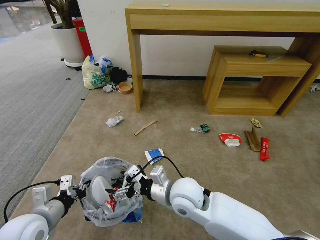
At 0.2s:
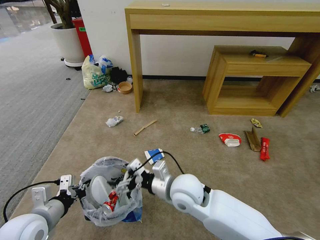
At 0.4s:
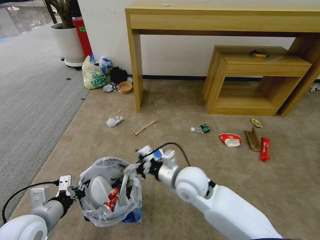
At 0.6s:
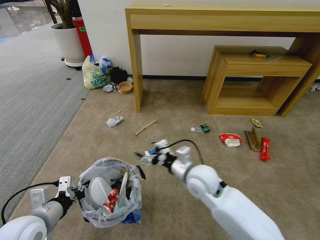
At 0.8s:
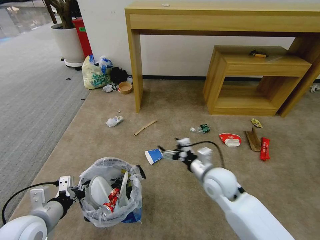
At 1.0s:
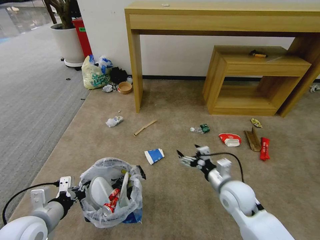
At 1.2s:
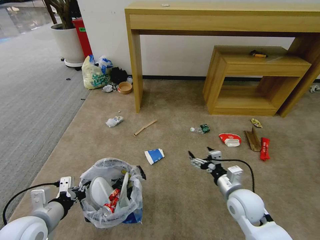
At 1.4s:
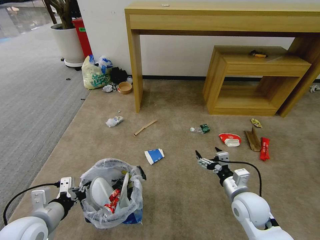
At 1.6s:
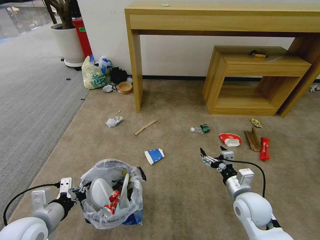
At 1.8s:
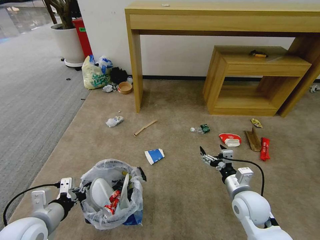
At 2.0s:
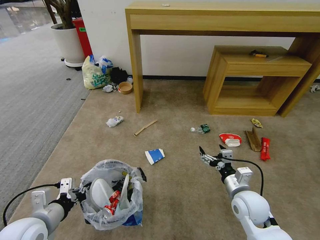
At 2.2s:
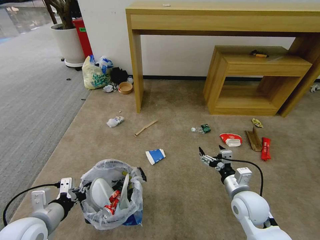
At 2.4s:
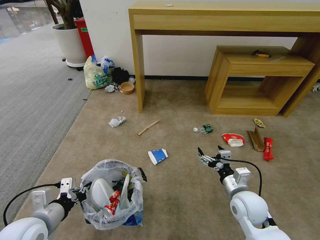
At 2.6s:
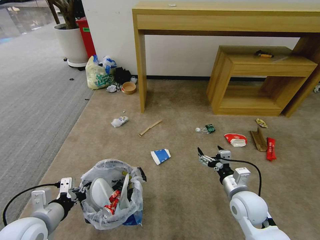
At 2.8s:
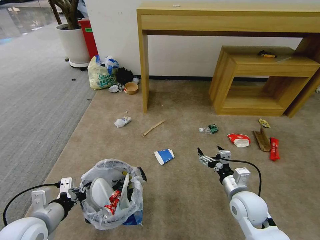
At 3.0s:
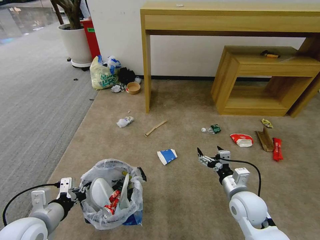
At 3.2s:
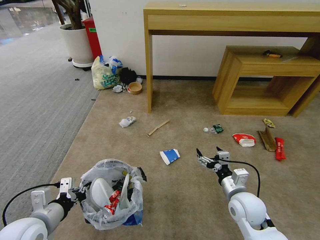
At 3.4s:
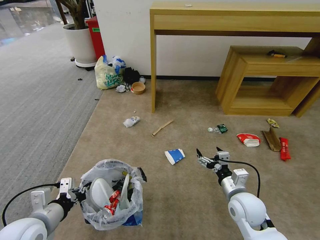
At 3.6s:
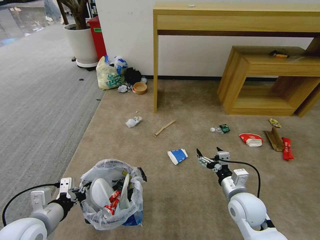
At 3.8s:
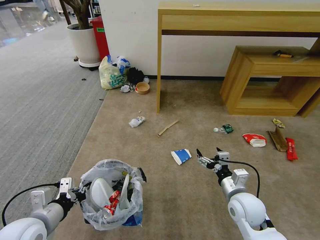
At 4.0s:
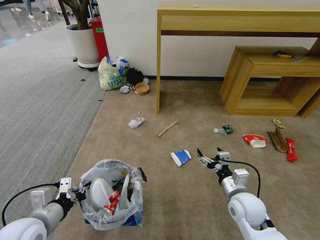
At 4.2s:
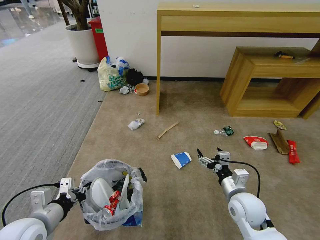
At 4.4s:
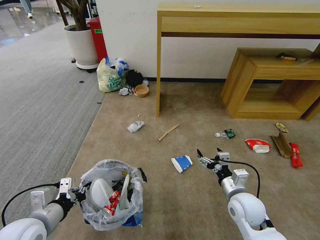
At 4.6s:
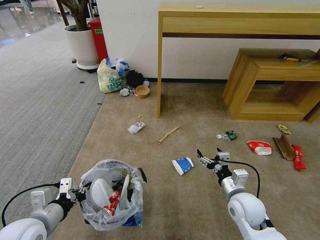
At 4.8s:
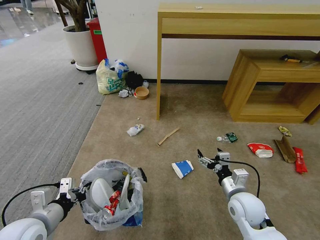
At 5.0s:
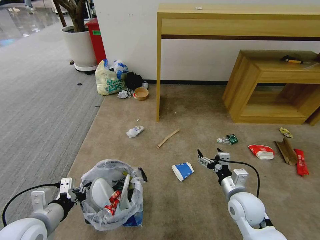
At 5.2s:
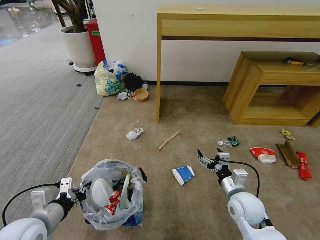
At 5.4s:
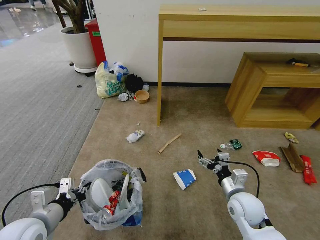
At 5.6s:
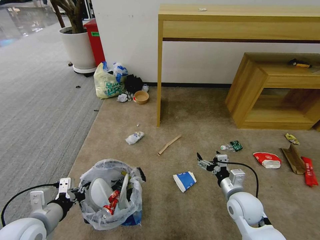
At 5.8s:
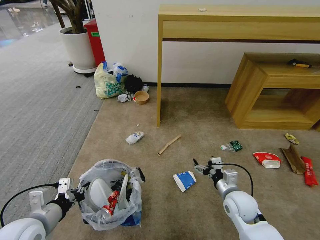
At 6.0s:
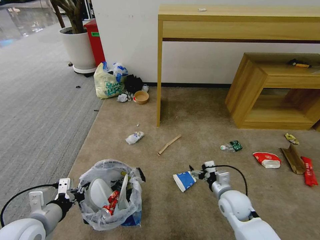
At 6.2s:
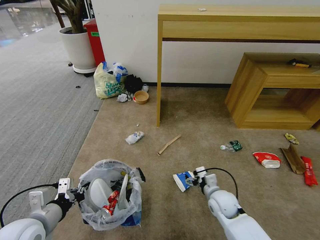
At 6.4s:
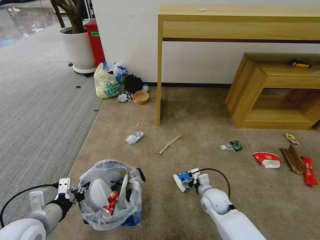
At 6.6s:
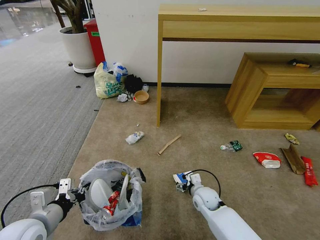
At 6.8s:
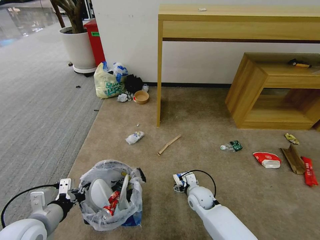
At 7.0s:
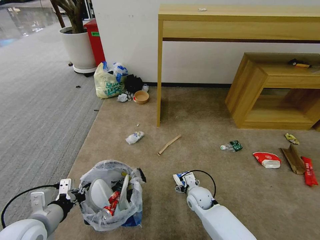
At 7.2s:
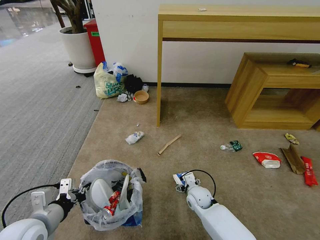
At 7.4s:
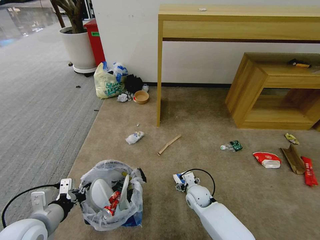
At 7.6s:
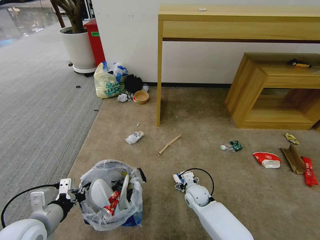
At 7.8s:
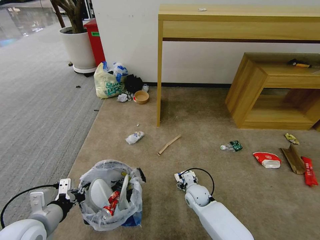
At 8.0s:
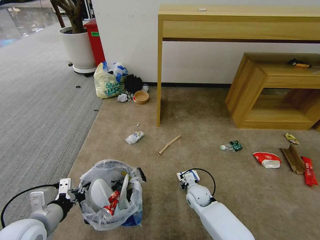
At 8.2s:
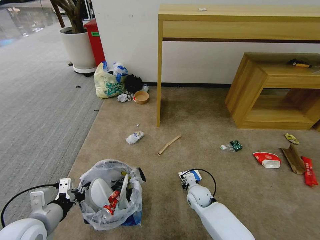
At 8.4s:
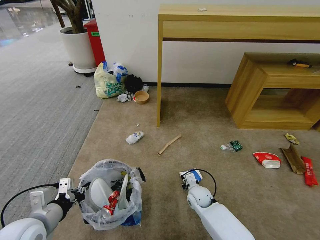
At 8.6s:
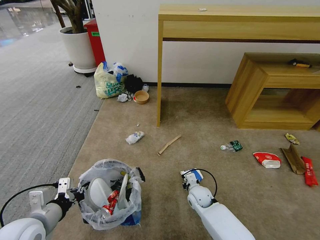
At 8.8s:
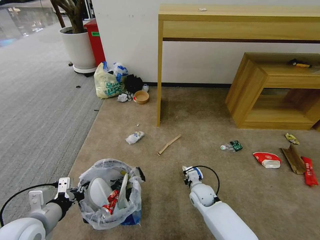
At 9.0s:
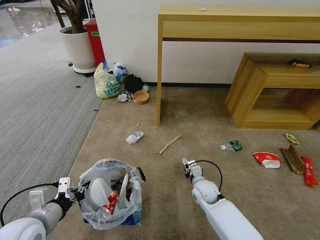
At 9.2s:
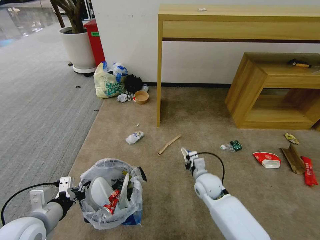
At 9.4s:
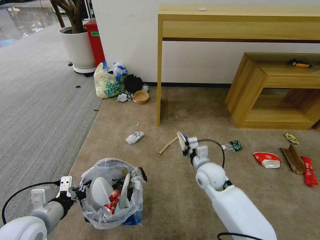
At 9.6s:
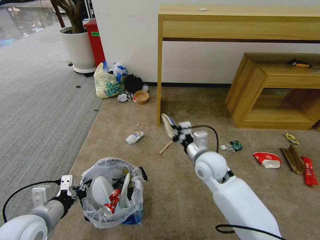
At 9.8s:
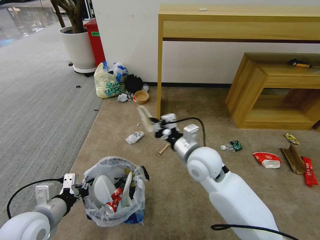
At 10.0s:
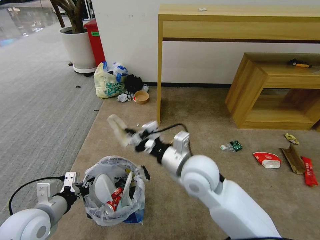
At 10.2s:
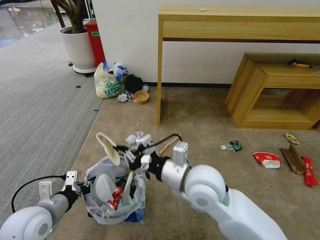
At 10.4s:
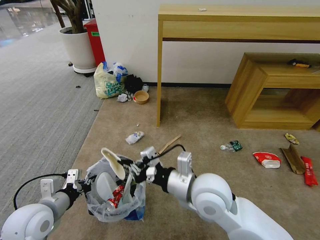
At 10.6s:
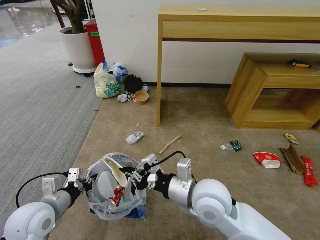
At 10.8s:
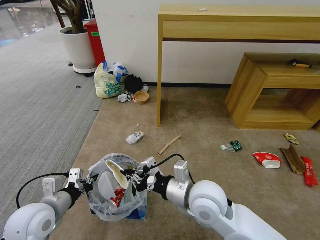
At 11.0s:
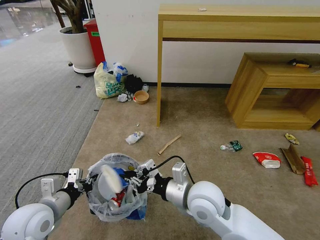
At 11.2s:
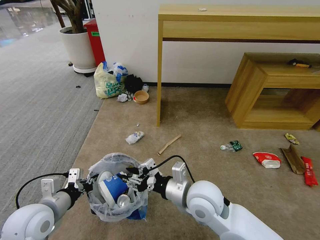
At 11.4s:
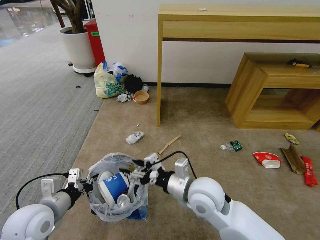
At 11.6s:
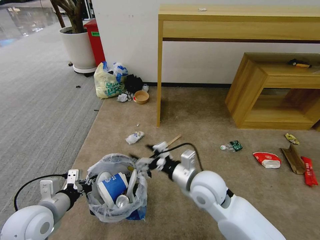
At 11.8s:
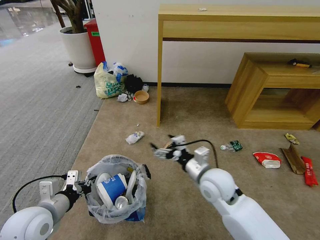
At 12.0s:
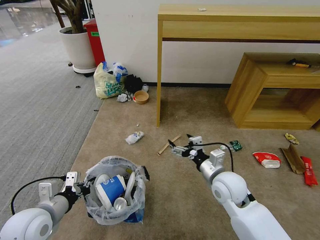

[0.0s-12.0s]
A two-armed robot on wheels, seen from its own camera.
Task of the whole recording: Pick up the trash bin and place the garbage on the floor into it.
0.0s to 1.6s: The right gripper travels to the right by approximately 20 cm.
1.6s to 3.0s: Both grippers stay put.
3.0s to 4.4s: The two grippers keep their place.
4.4s to 6.0s: The right gripper moves downward, some 5 cm.
6.0s to 7.6s: The right gripper heads to the left, downward and forward, covering roughly 15 cm.
7.6s to 9.0s: The right gripper closes up.
9.0s to 10.4s: The right gripper goes approximately 25 cm upward and backward.
10.4s to 12.0s: The right gripper is displaced to the right, downward and forward by some 15 cm, and opens up.

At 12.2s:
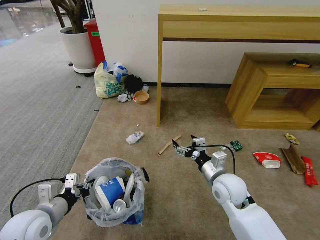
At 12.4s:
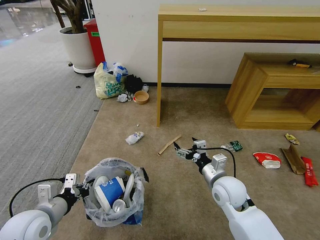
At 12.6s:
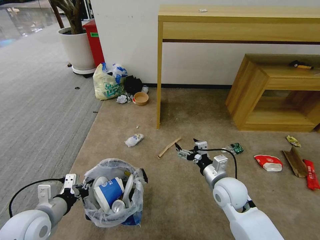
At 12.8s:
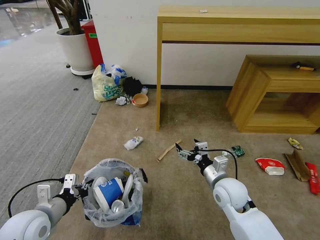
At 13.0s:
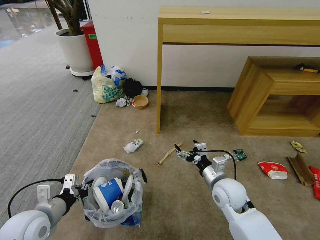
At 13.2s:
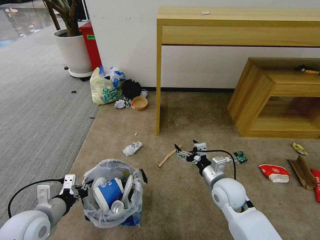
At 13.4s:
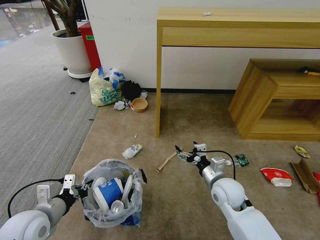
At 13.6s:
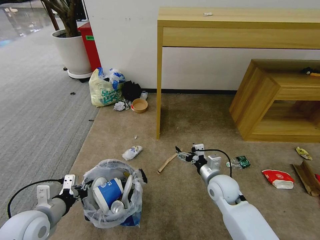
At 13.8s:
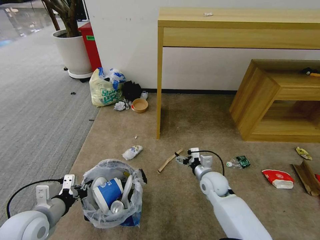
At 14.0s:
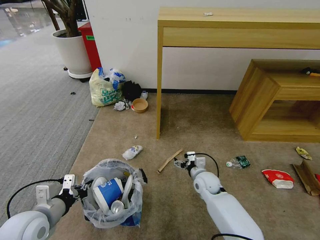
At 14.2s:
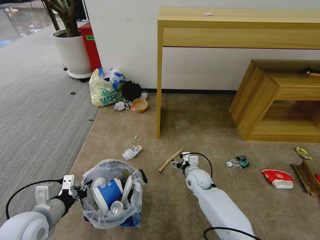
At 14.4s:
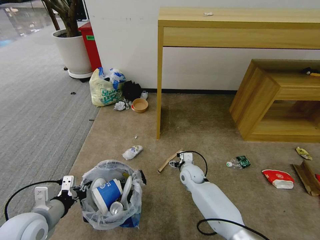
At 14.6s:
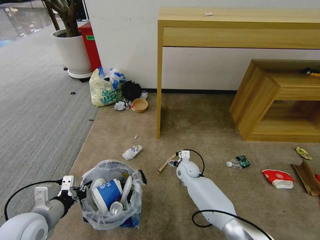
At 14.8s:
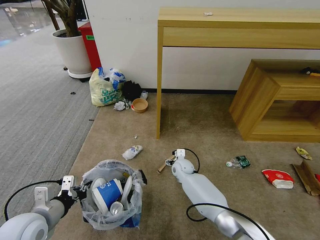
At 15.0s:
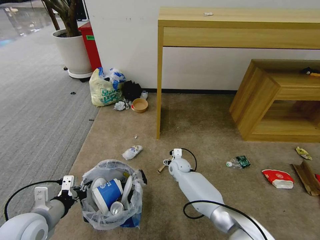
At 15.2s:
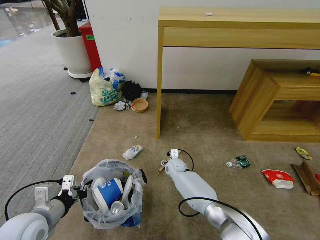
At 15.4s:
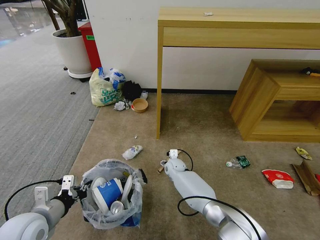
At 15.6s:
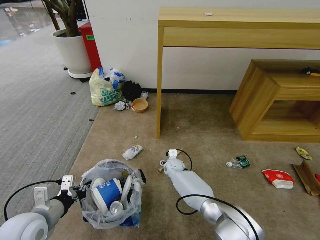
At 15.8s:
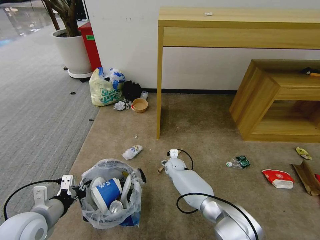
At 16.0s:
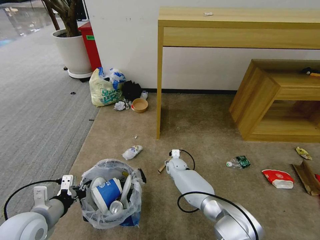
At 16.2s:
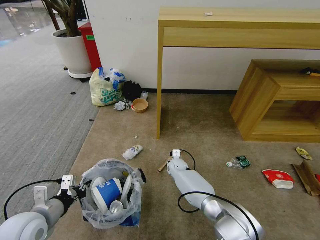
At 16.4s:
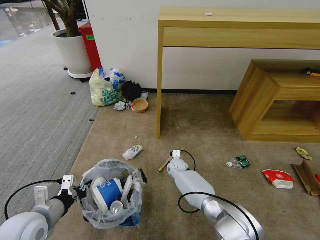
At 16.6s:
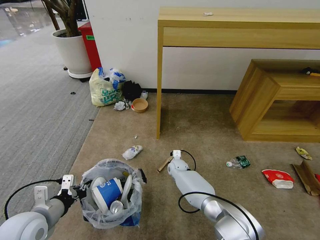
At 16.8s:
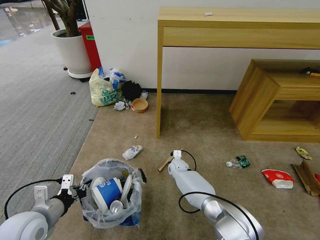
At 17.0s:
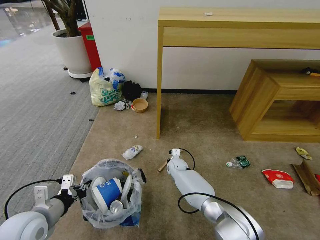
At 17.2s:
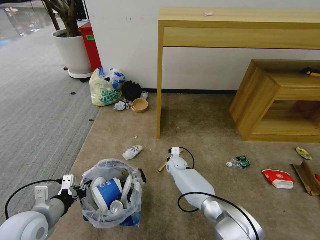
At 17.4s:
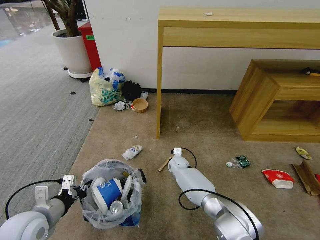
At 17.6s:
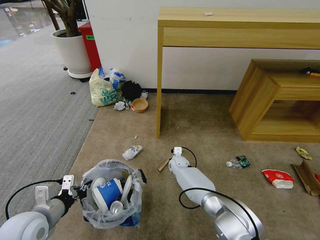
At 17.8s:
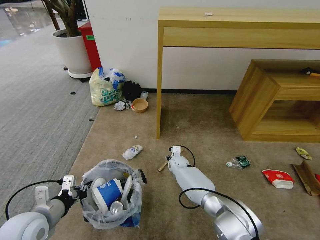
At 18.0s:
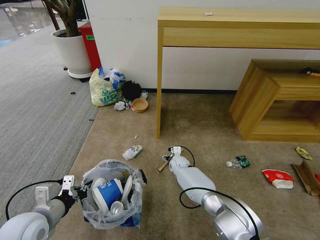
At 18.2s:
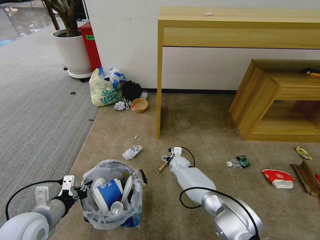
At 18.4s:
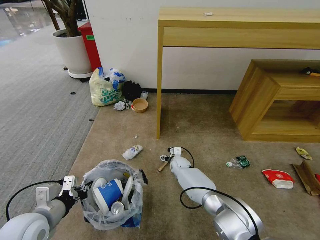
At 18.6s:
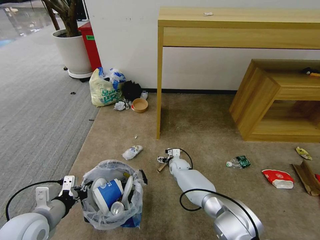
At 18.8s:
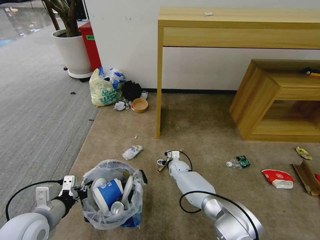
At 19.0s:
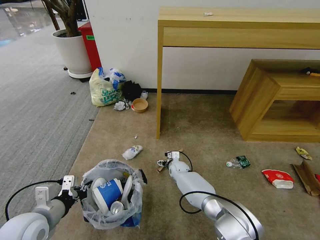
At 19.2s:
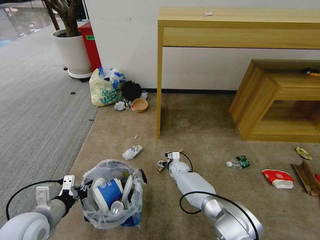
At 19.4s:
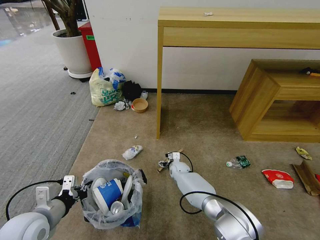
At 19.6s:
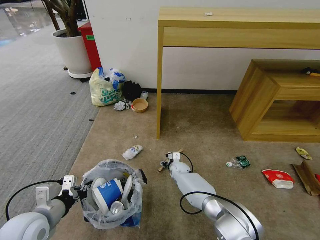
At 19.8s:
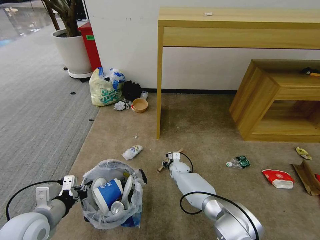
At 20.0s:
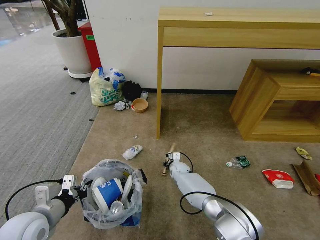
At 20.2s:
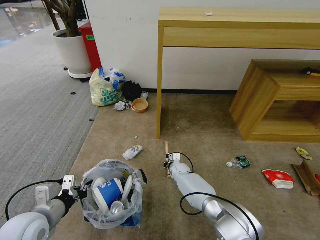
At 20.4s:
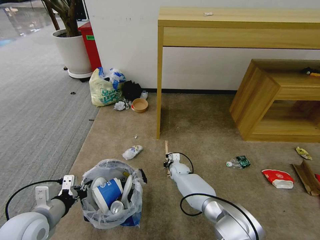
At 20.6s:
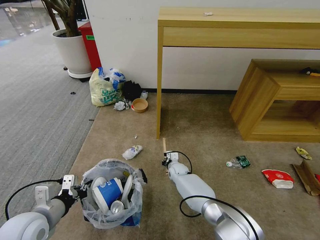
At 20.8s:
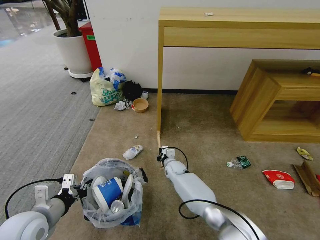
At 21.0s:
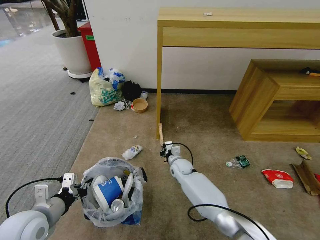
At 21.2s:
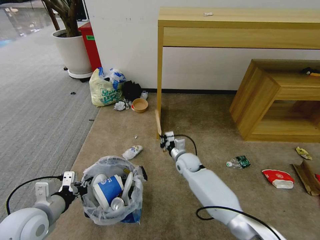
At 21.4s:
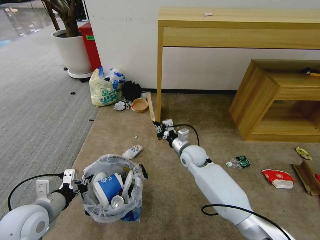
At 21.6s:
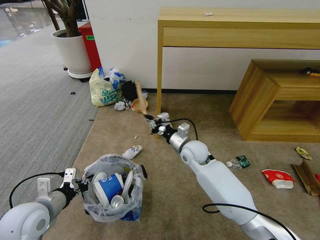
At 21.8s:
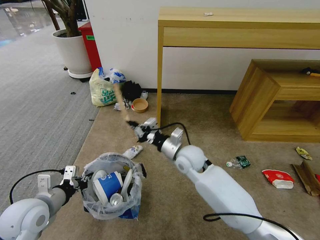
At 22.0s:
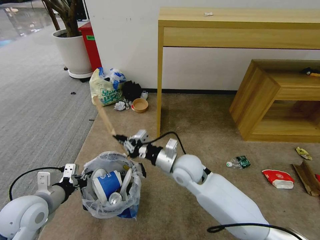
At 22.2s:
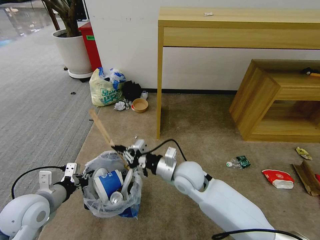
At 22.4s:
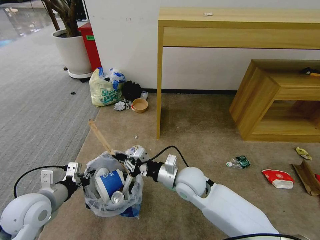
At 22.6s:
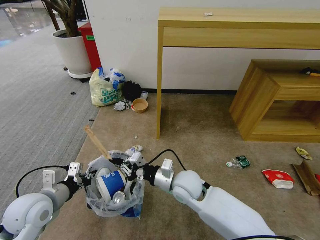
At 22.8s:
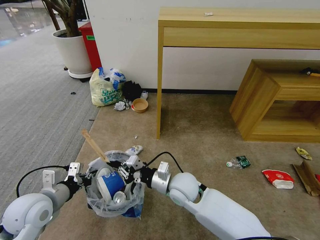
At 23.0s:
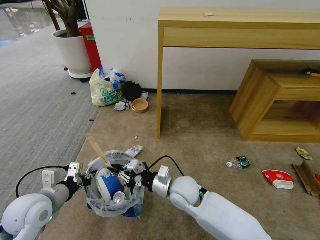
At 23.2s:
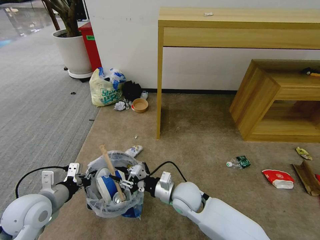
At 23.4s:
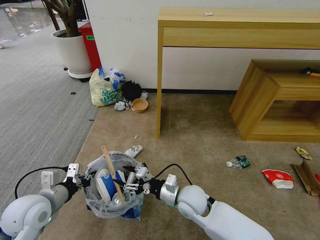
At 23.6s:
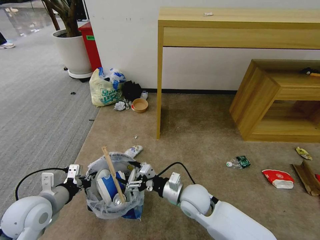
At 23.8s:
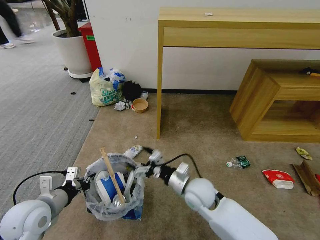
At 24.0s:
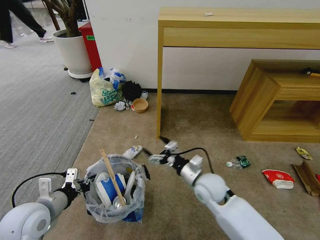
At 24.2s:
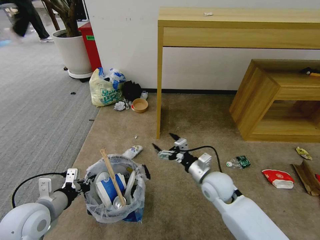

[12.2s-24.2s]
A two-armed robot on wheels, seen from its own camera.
Task of the whole recording: Pick up the trash bin and place the garbage on the floor into it.
12.2s to 13.8s: The right gripper moves downward and forward, approximately 10 cm.
13.8s to 15.2s: The right gripper heads to the left, forward and downward, covering some 20 cm.
15.2s to 16.6s: The right gripper closes up.
16.6s to 18.2s: The right gripper opens up.
18.2s to 19.8s: The right gripper closes up.
19.8s to 21.2s: The right gripper moves upward, approximately 15 cm, and closes.
21.2s to 22.6s: The right gripper travels backward and upward by roughly 15 cm.
22.6s to 24.2s: The right gripper heads to the right, covering some 10 cm, and opens.
